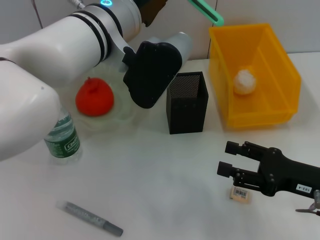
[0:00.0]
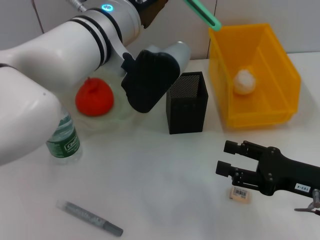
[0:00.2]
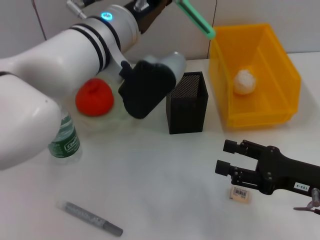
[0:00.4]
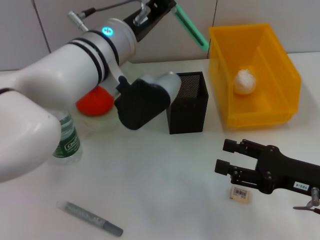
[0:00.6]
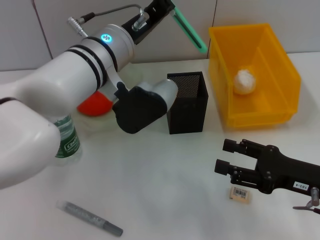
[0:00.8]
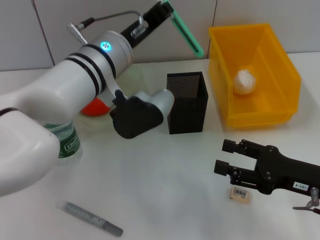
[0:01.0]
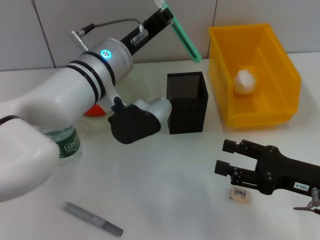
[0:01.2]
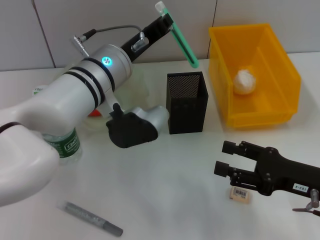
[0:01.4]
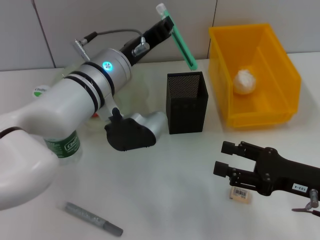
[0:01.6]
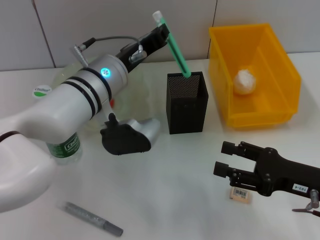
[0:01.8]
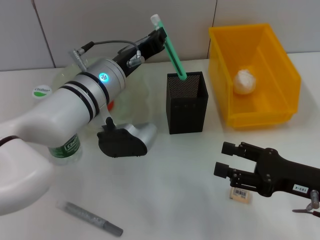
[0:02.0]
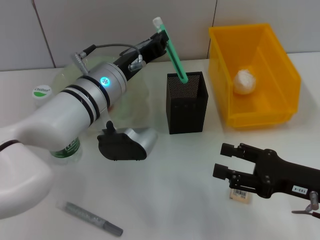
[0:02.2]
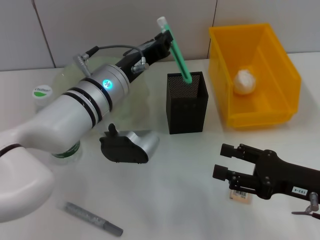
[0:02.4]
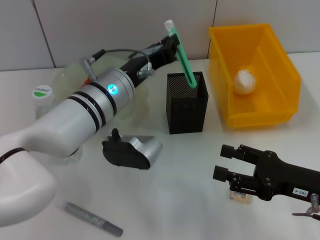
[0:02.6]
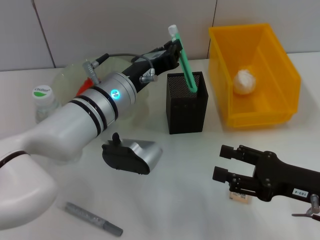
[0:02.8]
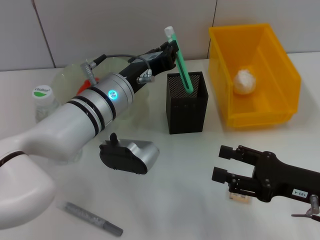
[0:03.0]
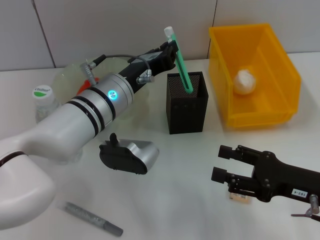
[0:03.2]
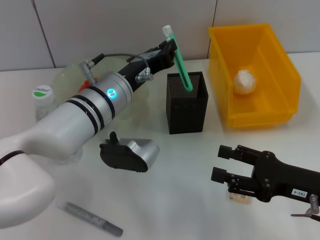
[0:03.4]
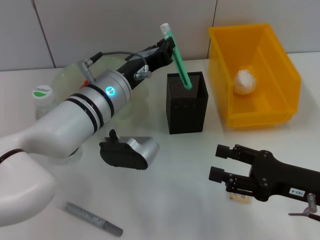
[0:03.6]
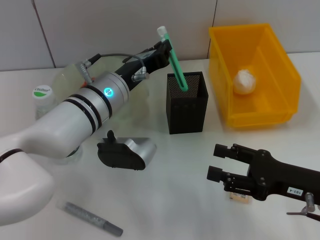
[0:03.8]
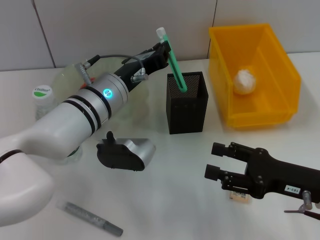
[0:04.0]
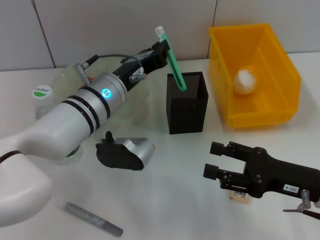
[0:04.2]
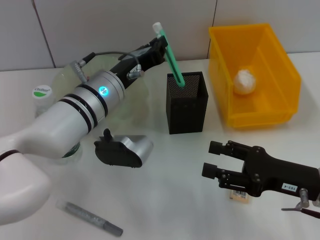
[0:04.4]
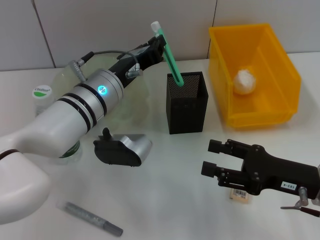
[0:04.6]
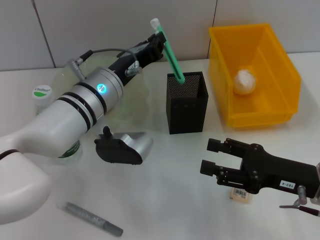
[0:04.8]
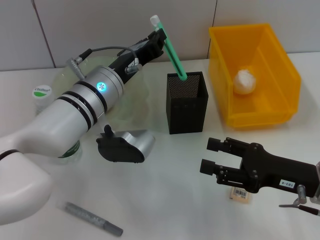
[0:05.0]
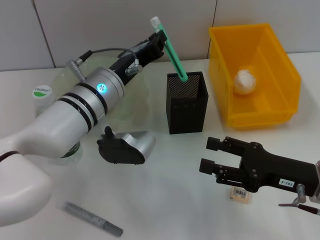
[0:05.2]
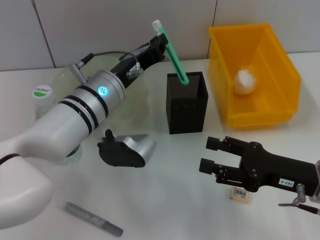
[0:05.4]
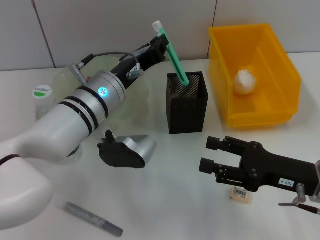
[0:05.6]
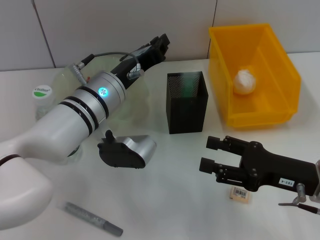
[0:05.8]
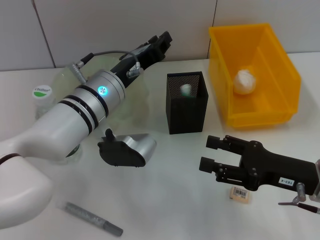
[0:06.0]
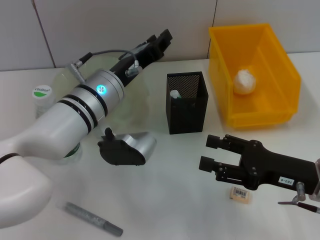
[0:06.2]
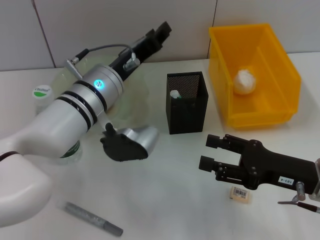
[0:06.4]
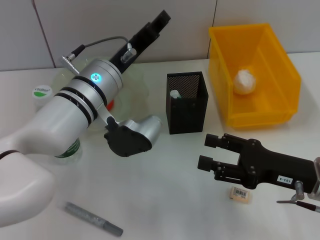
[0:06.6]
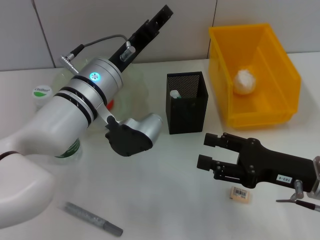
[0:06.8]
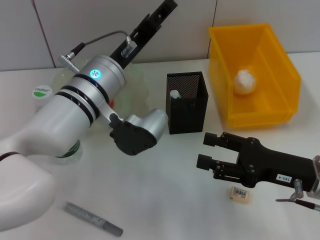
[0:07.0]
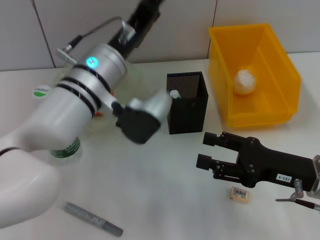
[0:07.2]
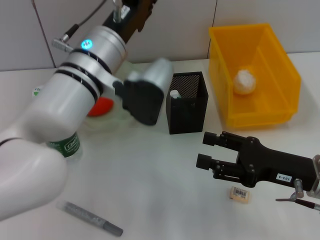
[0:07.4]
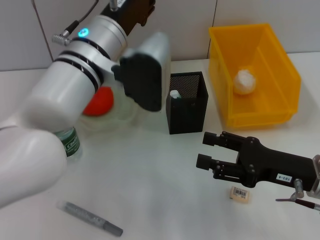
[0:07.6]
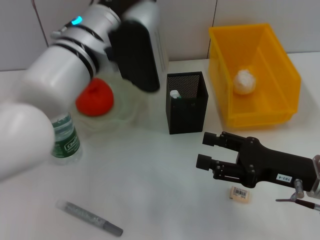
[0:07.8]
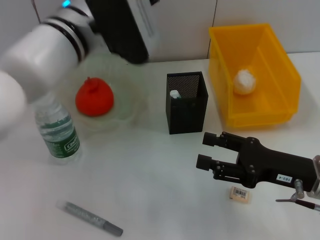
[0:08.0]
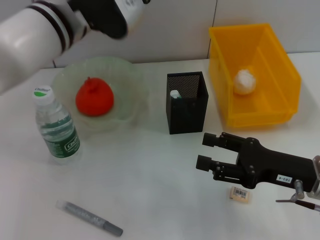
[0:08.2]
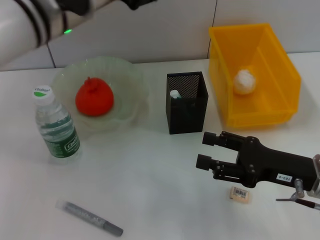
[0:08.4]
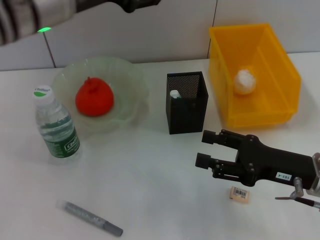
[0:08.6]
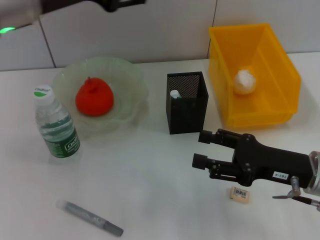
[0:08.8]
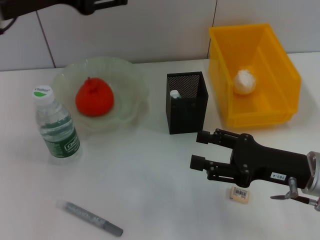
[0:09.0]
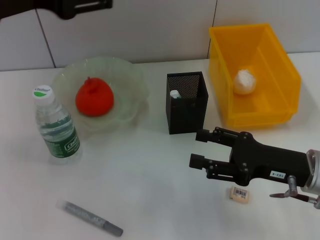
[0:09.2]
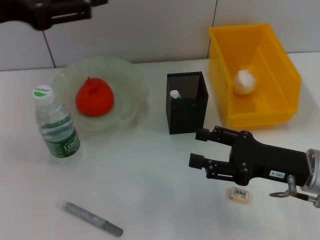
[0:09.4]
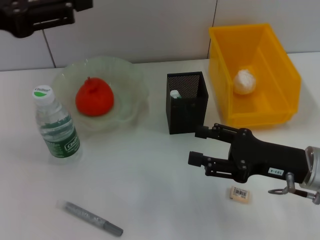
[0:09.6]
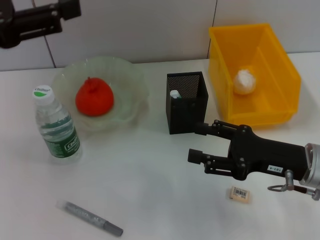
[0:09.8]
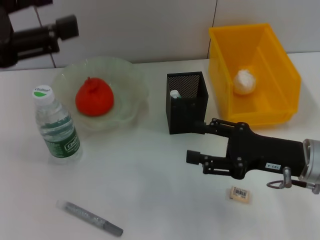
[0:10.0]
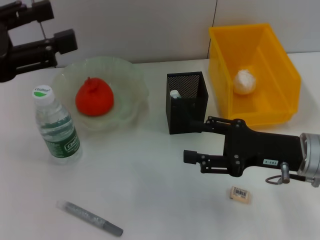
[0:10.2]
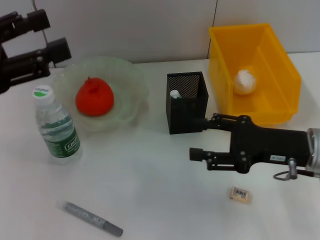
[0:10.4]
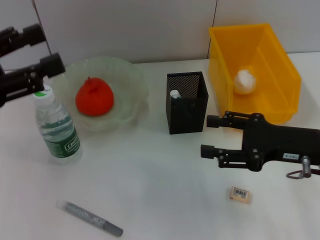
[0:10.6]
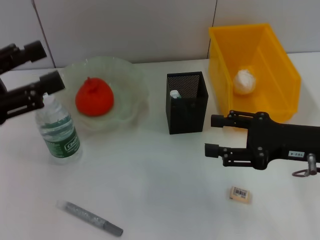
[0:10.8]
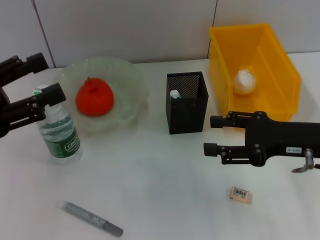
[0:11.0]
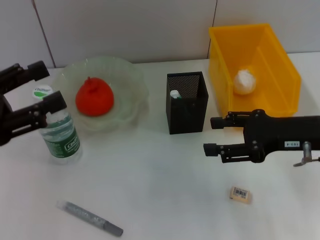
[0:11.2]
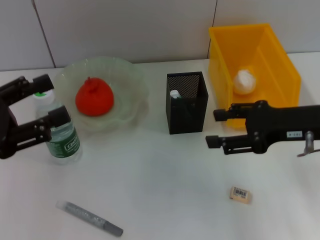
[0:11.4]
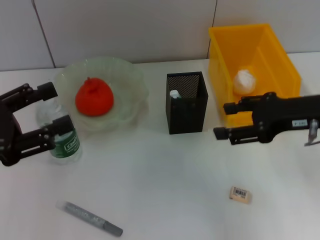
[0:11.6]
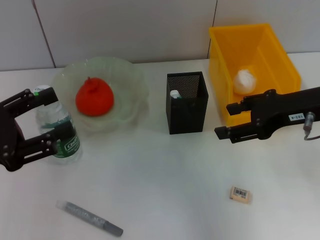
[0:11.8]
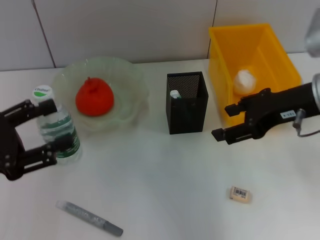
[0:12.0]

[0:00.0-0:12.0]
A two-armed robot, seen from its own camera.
Step, 0:00.0 to 0:07.0: Place the blue utility knife into the pen holder with the left hand.
0:00.0 to 0:01.6: The left gripper travels downward by some 10 cm.
0:03.0 to 0:04.4: There are only small adjustments of the grippers.
0:04.4 to 0:06.0: The two grippers keep their place.
0:06.0 to 0:07.6: The left gripper travels upward by approximately 5 cm, and opens its fingers.
0:07.6 to 0:09.0: The left gripper goes some 15 cm to the left and upward.
0:09.0 to 0:10.4: The left gripper travels to the left and backward by about 10 cm.
0:10.4 to 0:12.0: The left gripper goes approximately 10 cm downward. Meanwhile the right gripper goes some 10 cm upward.

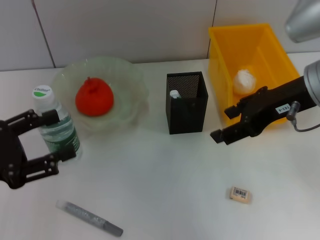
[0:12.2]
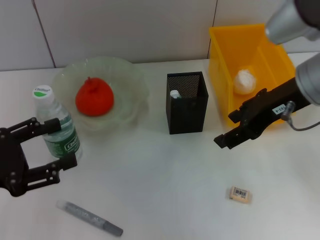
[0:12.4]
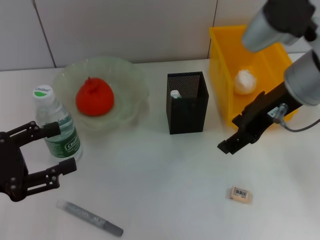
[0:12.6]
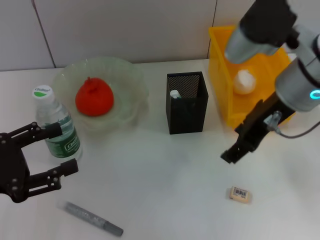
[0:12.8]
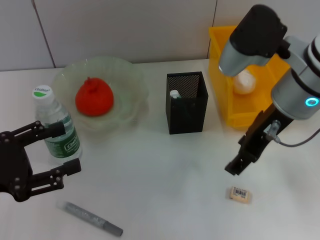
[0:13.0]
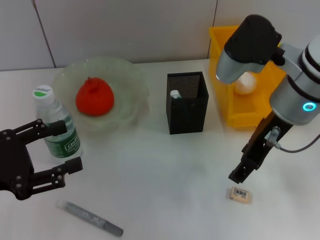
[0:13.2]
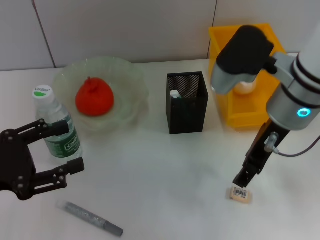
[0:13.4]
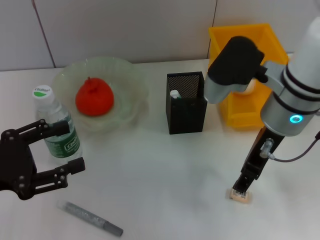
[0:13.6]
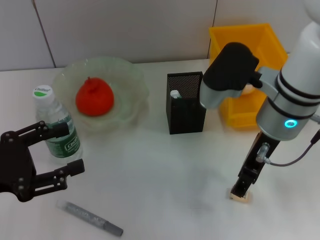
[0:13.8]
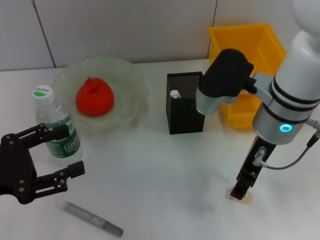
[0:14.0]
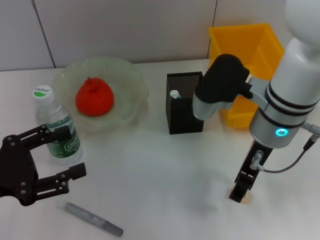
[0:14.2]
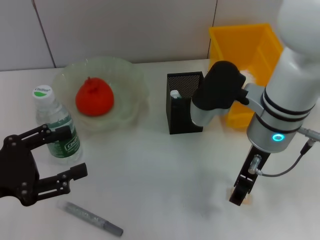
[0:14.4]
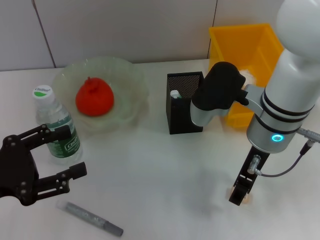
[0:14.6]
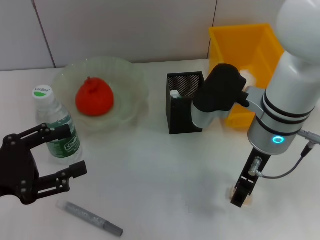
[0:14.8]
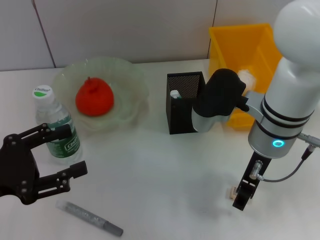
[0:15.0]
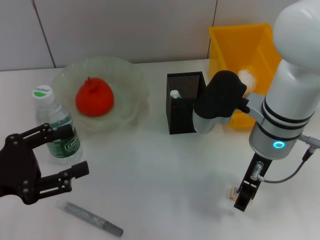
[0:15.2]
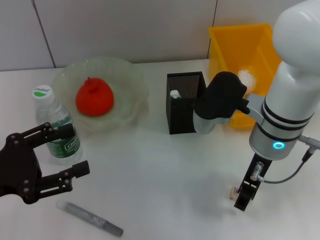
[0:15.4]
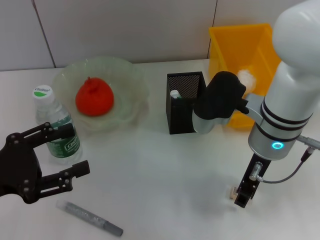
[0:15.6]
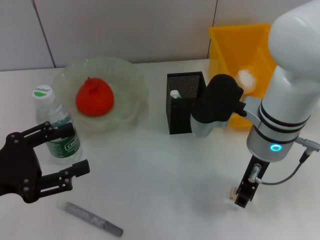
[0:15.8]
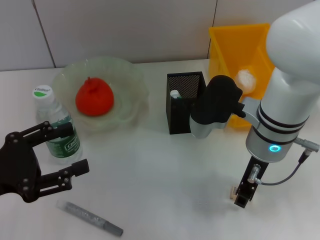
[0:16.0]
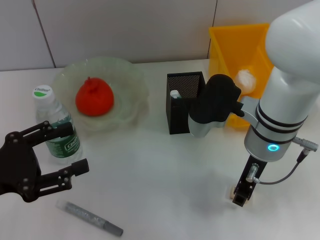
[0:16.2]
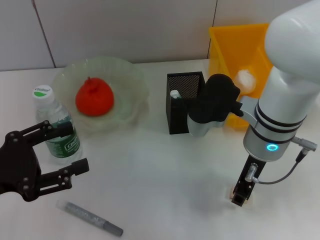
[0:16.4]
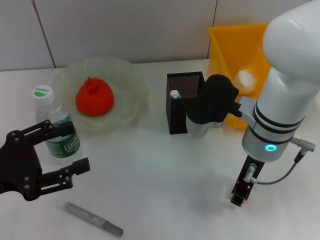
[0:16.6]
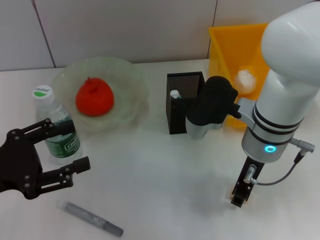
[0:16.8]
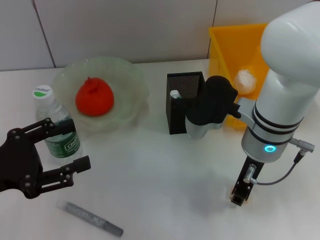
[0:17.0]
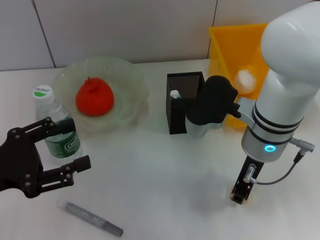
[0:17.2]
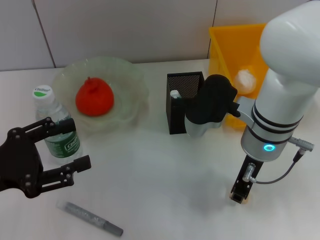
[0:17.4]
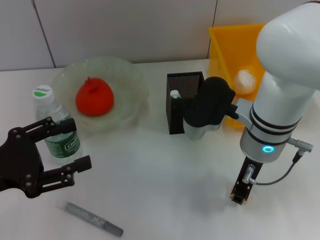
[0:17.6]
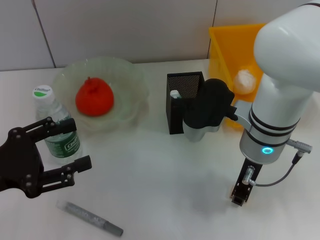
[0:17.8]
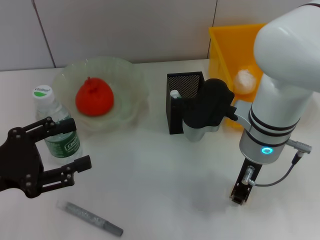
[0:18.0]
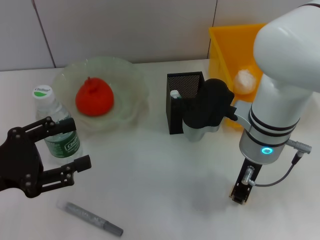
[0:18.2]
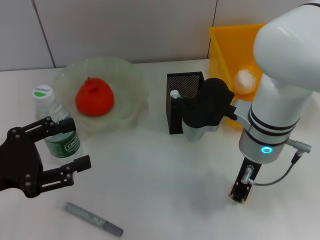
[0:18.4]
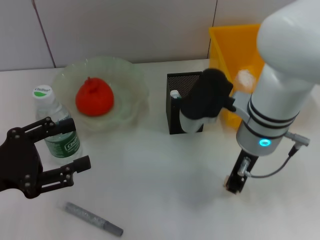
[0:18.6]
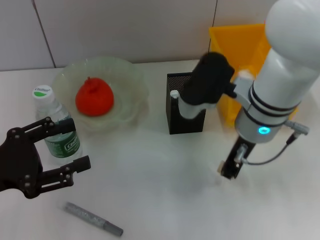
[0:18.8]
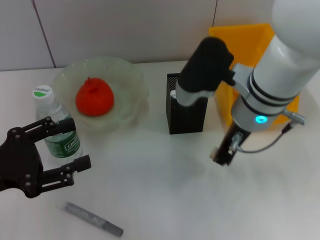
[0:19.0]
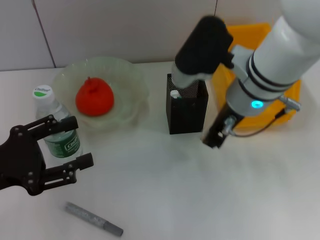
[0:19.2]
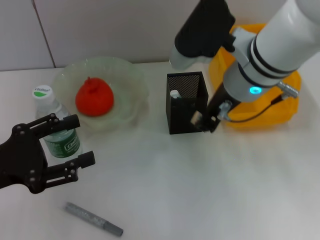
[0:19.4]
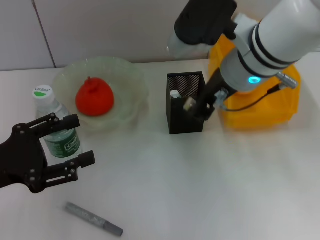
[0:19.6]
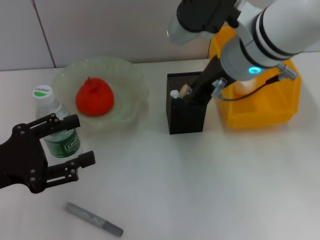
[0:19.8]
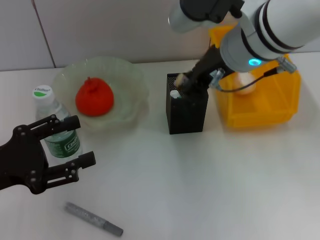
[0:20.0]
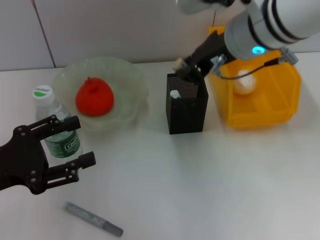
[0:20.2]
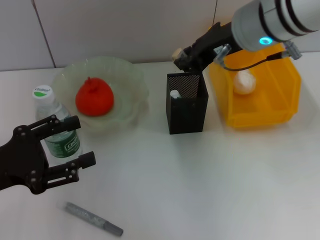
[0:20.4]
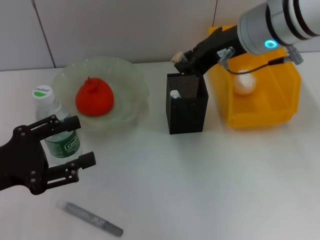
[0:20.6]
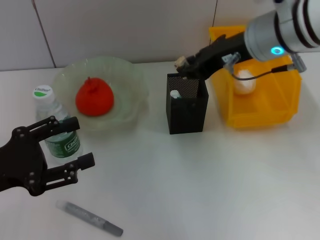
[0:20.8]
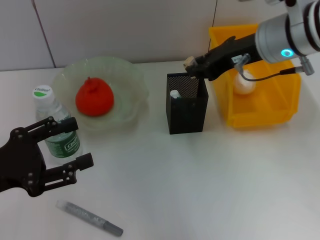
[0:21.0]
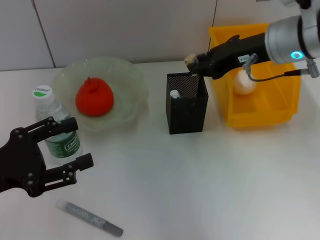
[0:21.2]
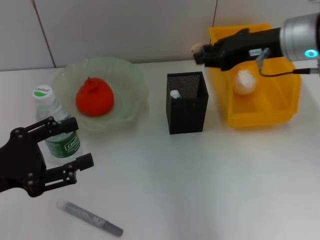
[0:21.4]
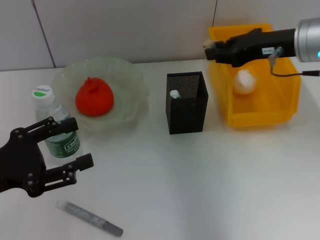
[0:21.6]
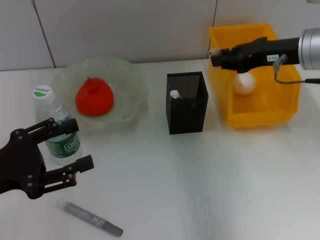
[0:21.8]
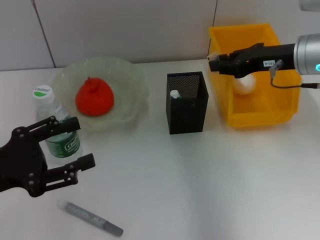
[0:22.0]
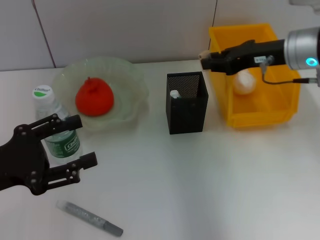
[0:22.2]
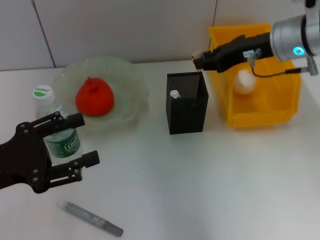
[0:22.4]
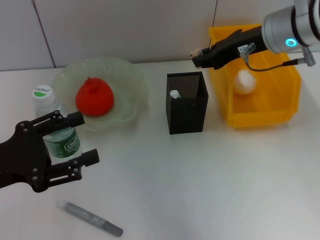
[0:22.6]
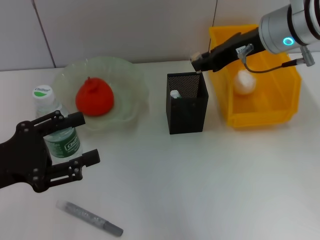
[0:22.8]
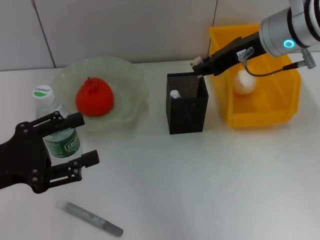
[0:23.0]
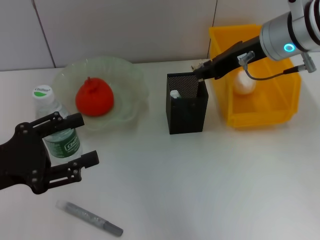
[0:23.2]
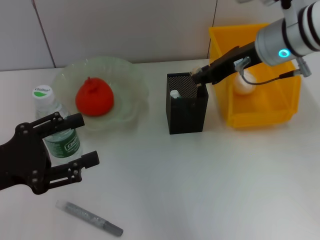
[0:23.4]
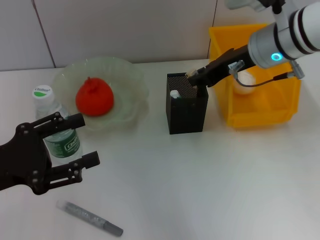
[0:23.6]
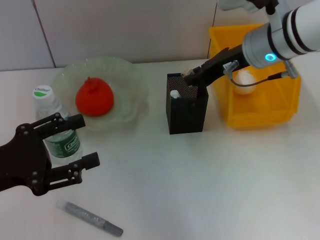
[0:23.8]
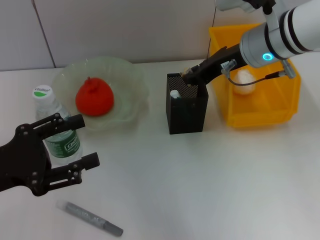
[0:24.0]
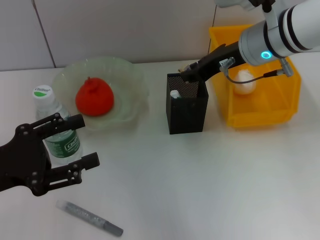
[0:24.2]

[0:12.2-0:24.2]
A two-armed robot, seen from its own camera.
Step, 0:12.2 to 0:18.2: Grab the eraser with the right hand.
0:12.2 to 0:13.8: The right gripper moves to the left, approximately 5 cm.
0:13.8 to 0:15.2: There are only small adjustments of the grippers.
0:15.2 to 0:16.6: The right gripper closes up.
0:16.6 to 0:18.2: The right gripper closes.
0:18.2 to 0:19.8: The right gripper goes some 10 cm upward.
0:19.8 to 0:21.2: The right gripper heads to the right, covering roughly 10 cm.
0:22.6 to 0:24.2: The grippers move only a little.
